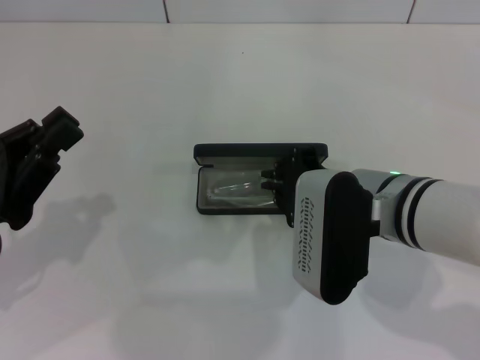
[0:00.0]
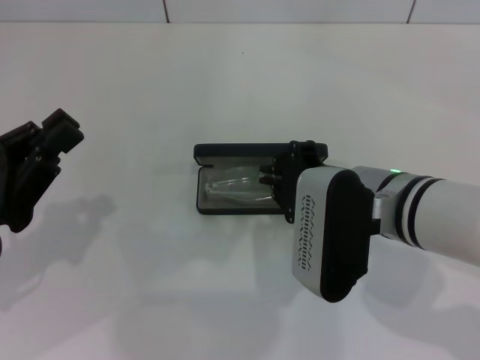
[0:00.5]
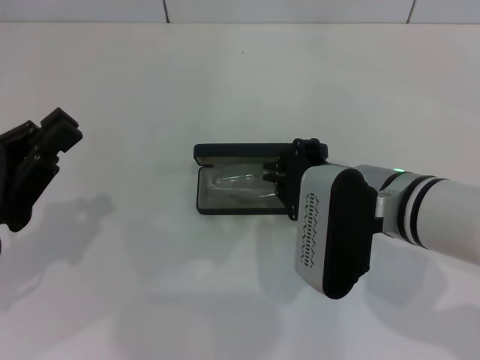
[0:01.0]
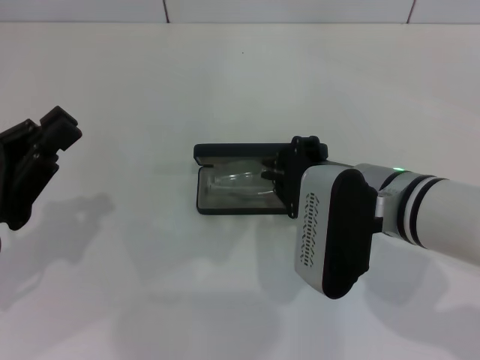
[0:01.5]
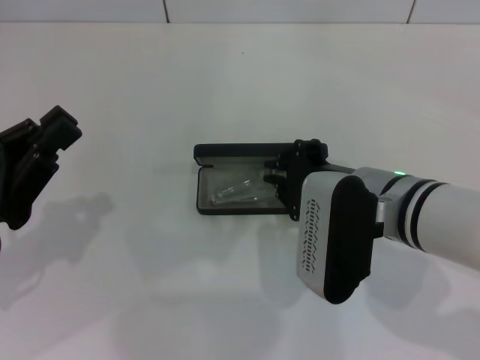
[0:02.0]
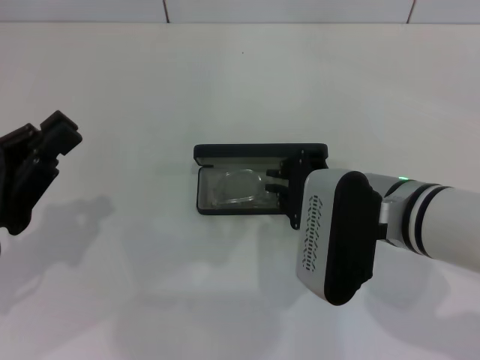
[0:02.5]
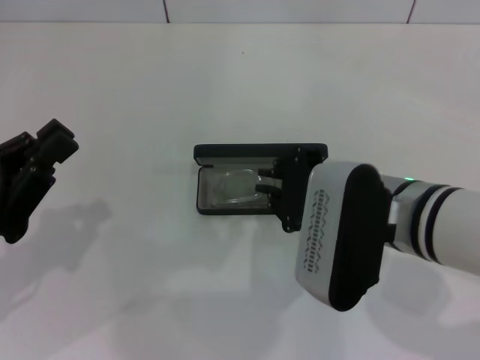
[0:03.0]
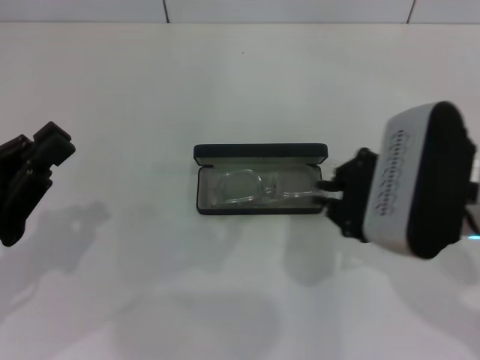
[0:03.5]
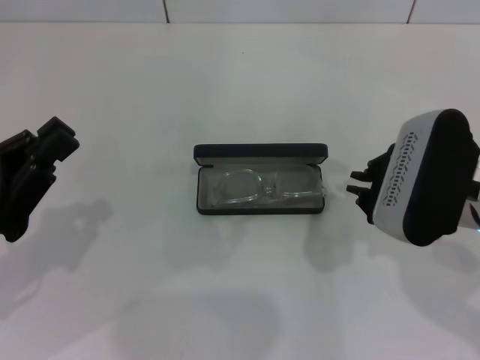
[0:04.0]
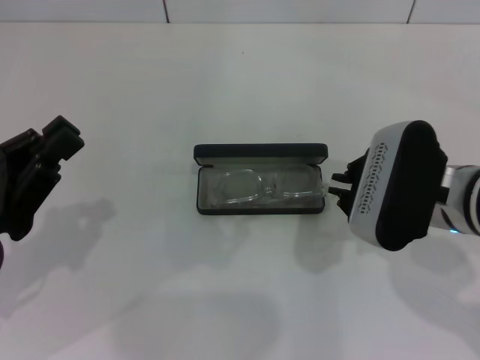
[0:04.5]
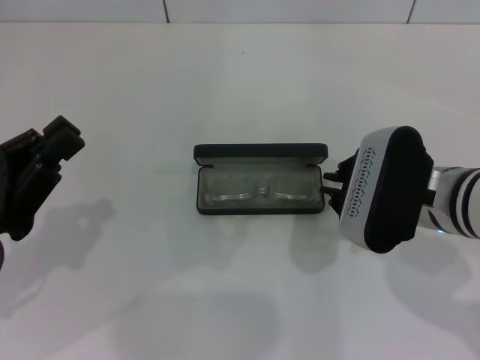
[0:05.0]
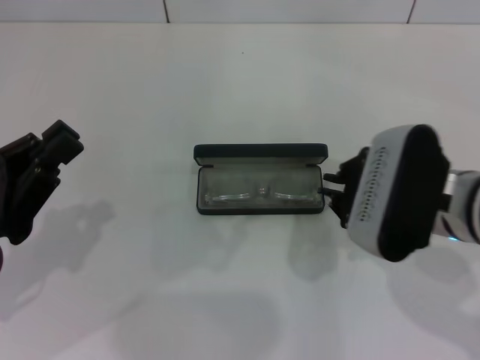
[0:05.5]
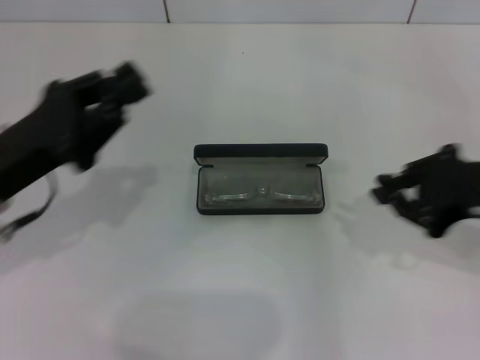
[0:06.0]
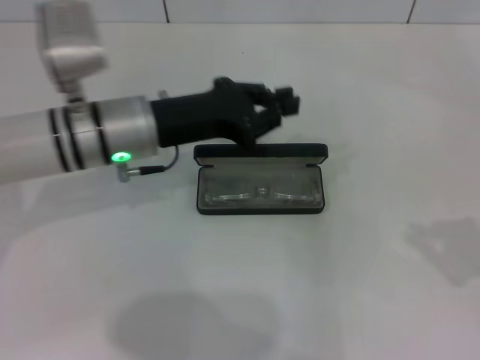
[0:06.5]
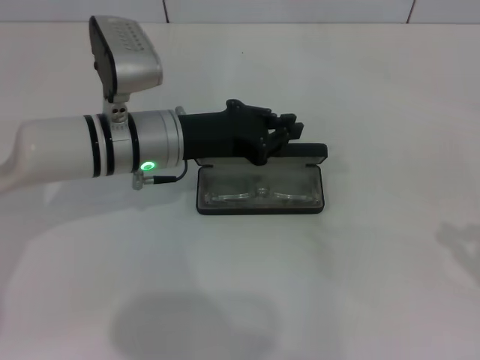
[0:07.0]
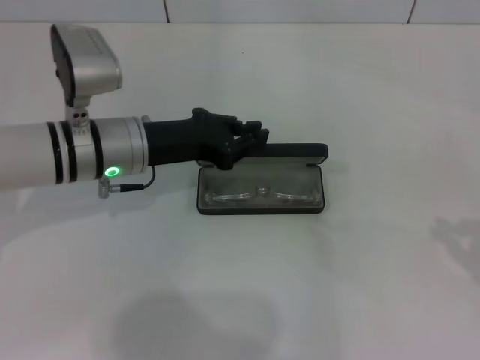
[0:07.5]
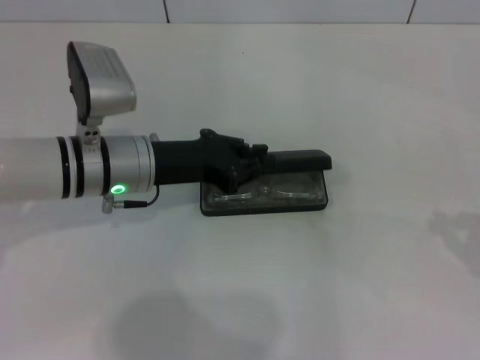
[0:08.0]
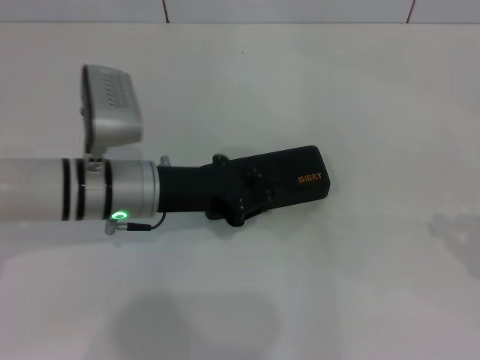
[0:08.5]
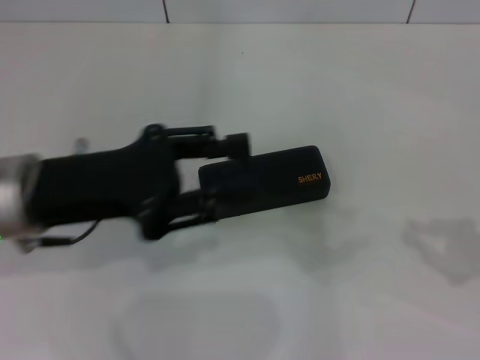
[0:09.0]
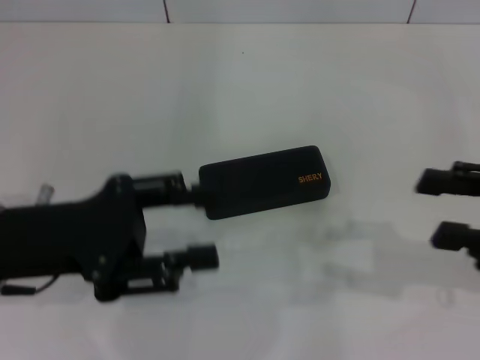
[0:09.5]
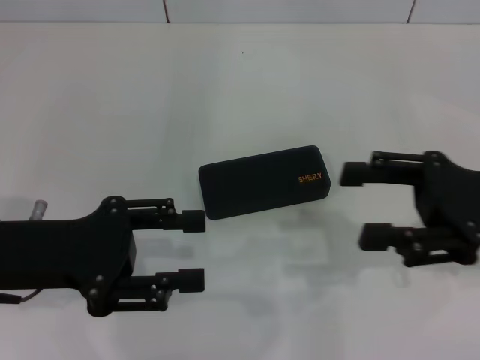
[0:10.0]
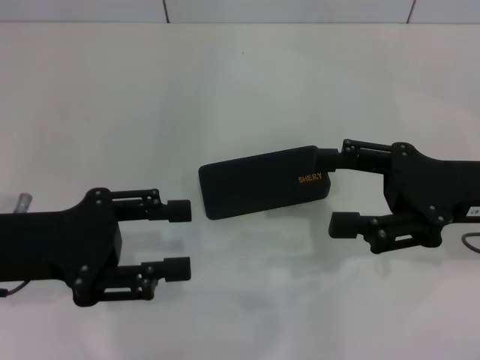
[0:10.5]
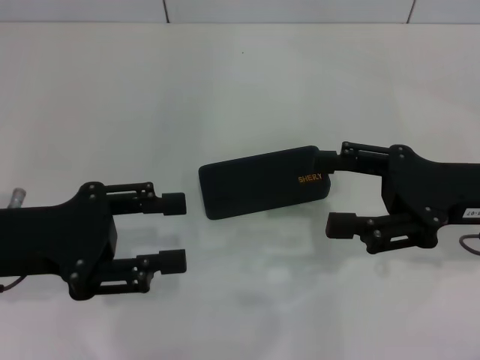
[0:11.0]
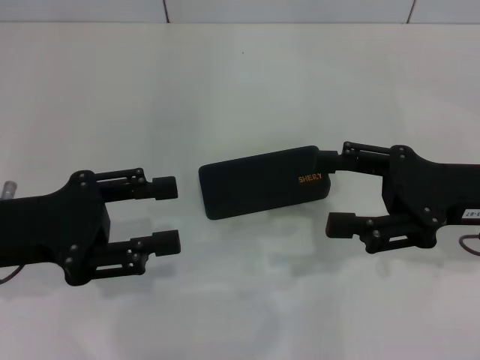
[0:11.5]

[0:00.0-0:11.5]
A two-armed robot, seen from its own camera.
Step, 0:00.0 to 0:03.0: Put the glasses into the case with your right hand.
Step, 0:03.5 to 0:08.5: Close the glasses case with your left hand.
0:00.0 to 0:02.0: Both grippers stay about where they are.
0:02.0 to 0:04.0: The right gripper heads to the right, covering roughly 5 cm.
0:04.0 to 0:06.0: The left gripper shifts some 5 cm forward. The right gripper is displaced to the right by approximately 5 cm.
0:06.0 to 0:07.5: The right gripper heads to the right, covering approximately 15 cm; the left gripper is displaced to the right and forward by approximately 15 cm.
0:07.5 to 0:09.5: The right gripper is displaced to the left by approximately 10 cm, and opens. The left gripper shifts some 15 cm backward, to the left and upward, and opens its fingers.
0:09.5 to 0:11.5: The right gripper goes some 5 cm to the left, and opens its fingers.
